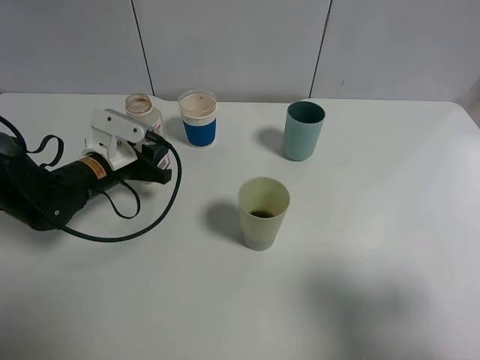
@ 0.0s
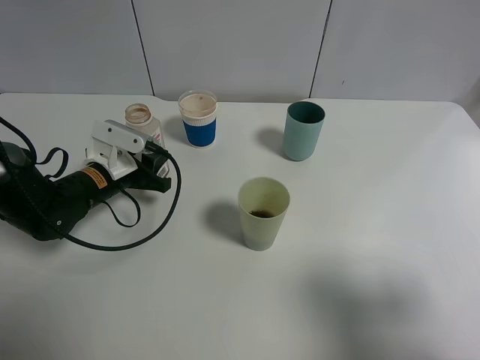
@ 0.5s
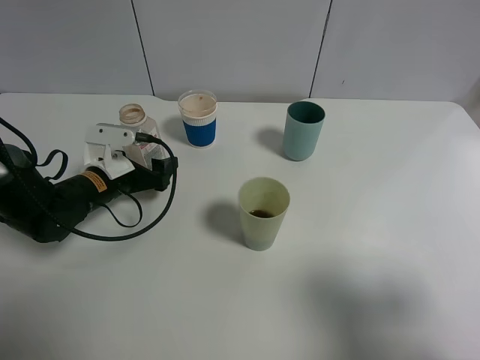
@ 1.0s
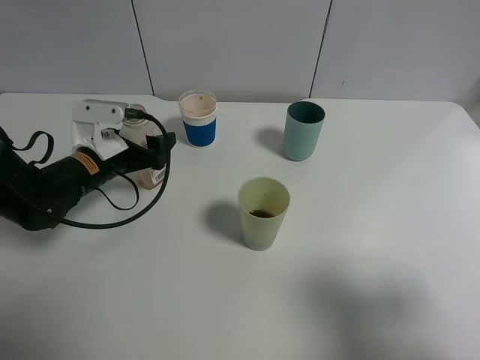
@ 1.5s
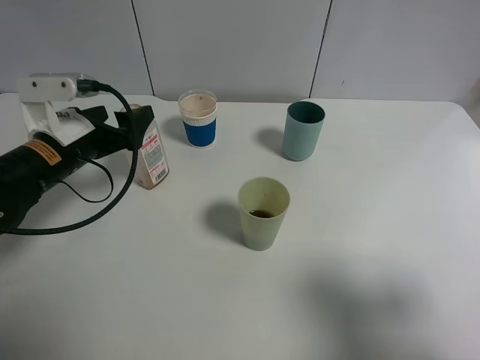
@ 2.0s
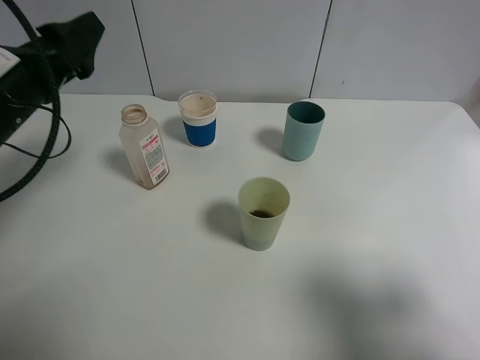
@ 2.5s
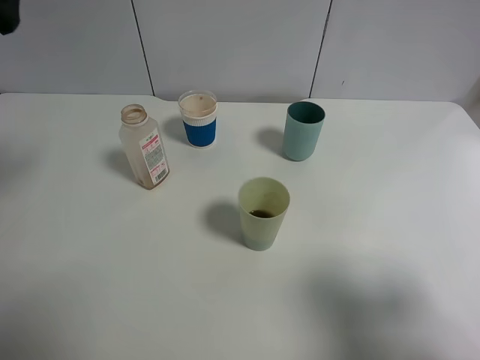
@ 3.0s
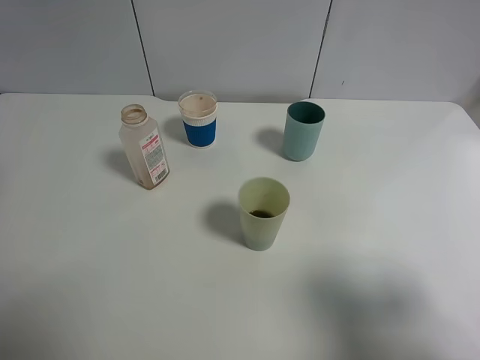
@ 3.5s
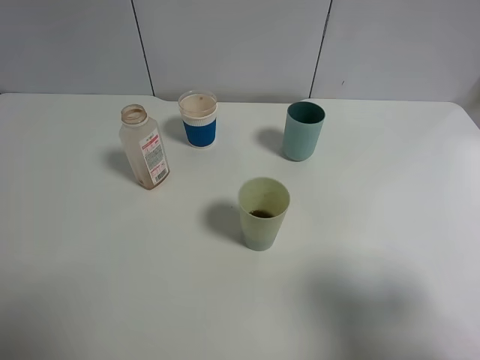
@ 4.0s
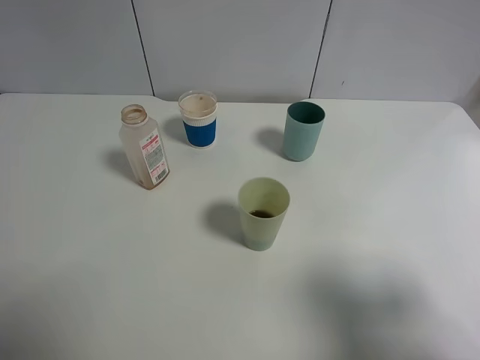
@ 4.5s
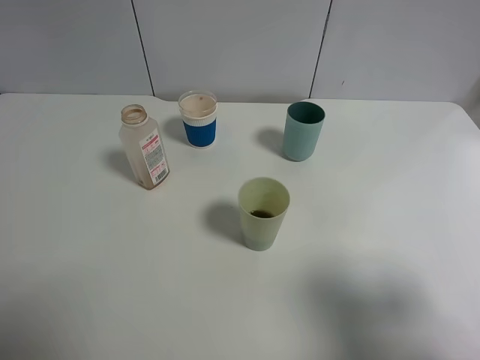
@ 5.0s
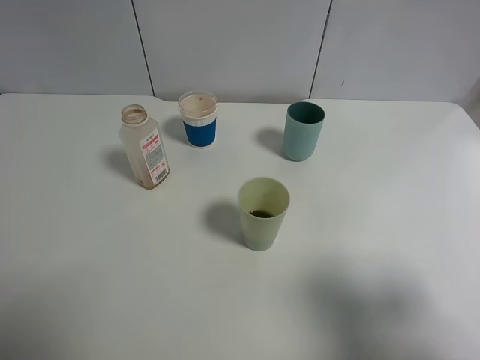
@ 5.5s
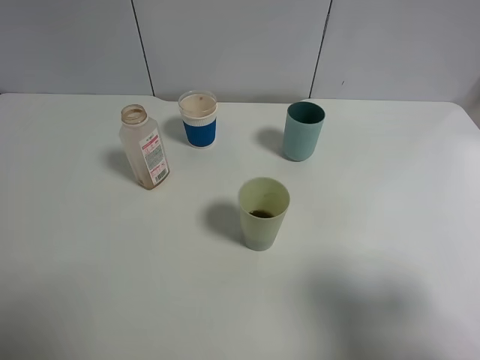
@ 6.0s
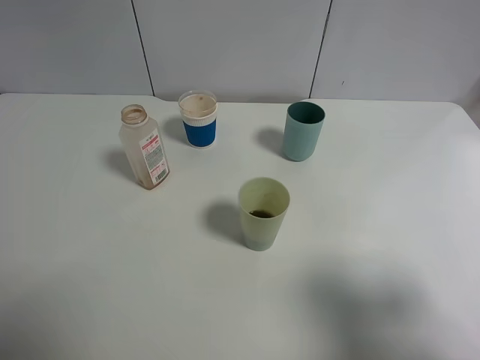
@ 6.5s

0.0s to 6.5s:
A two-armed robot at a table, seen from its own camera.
Task of the whole recording: use a gripper to hold the bottle of the drink and pour it into a random cup.
0.0s to 2.0s: The left gripper shifts about 10 cm upward, and opens.
2.0s to 4.5s: The left gripper travels backward and upward by approximately 30 cm.
